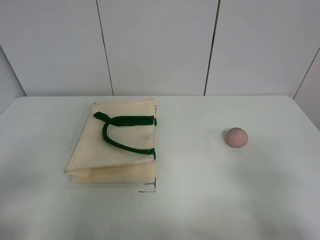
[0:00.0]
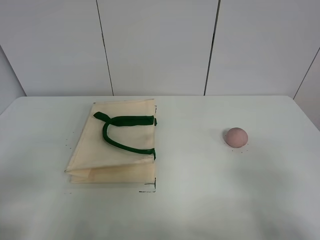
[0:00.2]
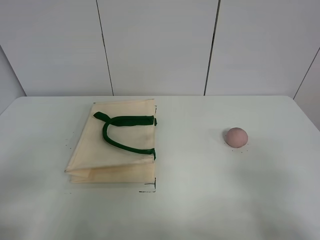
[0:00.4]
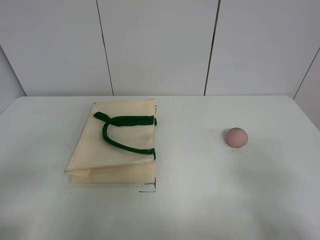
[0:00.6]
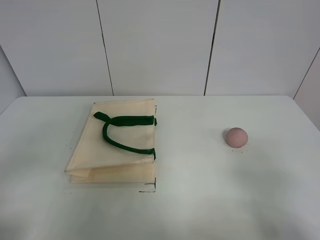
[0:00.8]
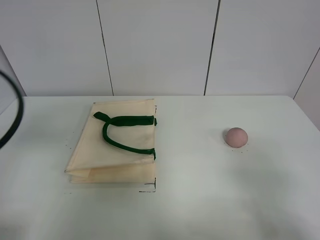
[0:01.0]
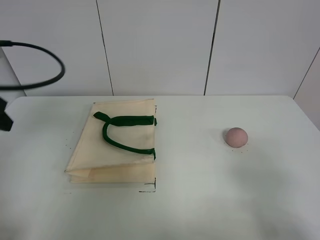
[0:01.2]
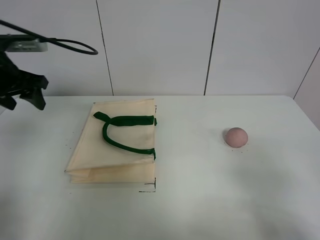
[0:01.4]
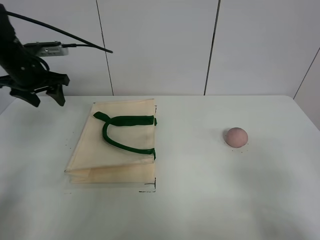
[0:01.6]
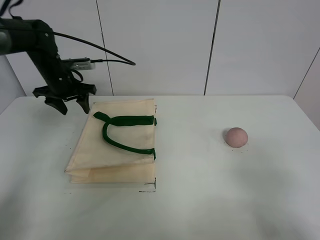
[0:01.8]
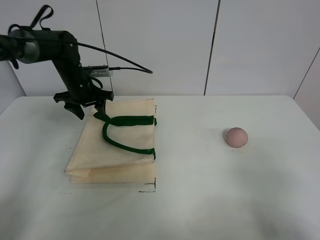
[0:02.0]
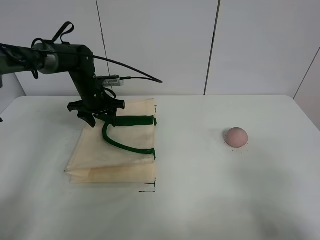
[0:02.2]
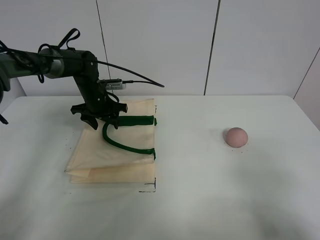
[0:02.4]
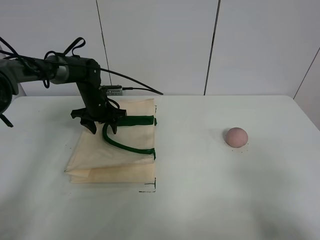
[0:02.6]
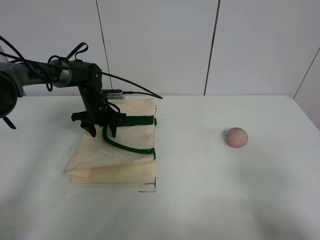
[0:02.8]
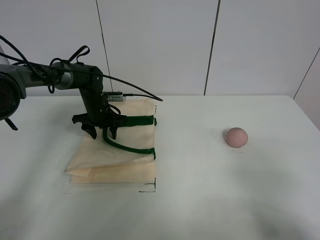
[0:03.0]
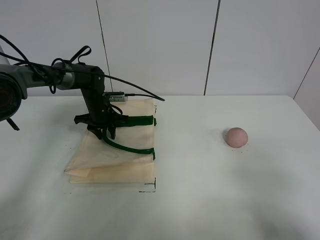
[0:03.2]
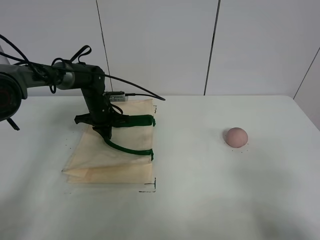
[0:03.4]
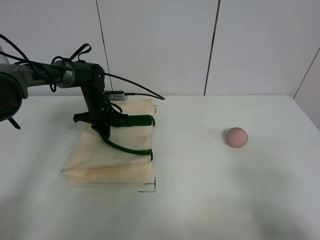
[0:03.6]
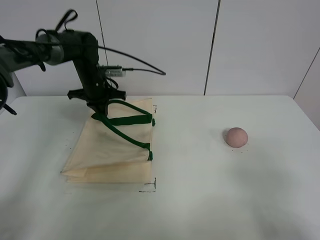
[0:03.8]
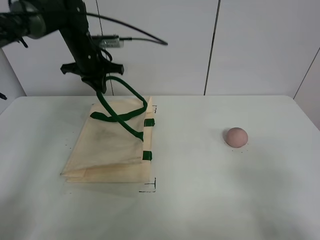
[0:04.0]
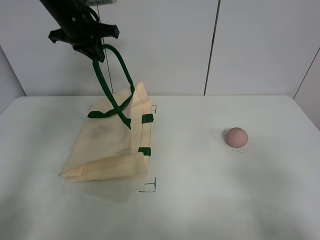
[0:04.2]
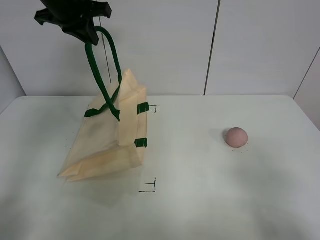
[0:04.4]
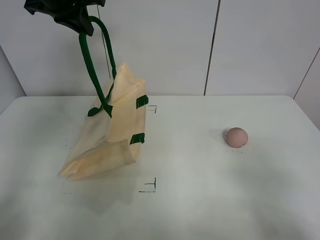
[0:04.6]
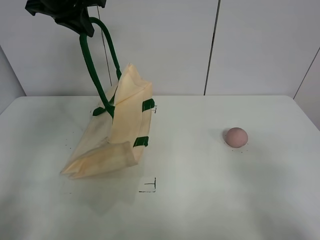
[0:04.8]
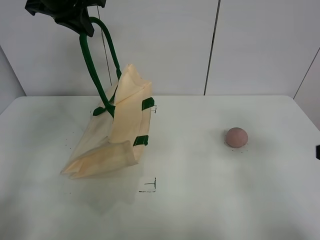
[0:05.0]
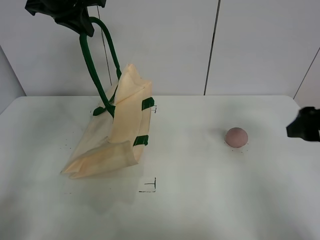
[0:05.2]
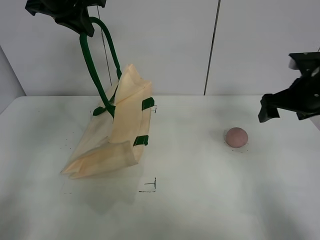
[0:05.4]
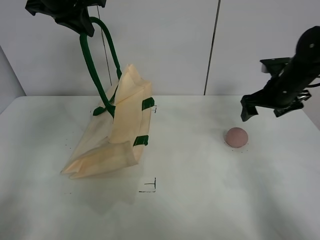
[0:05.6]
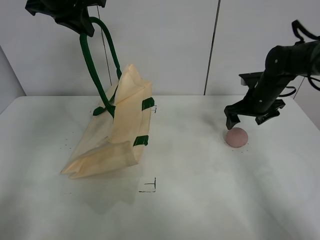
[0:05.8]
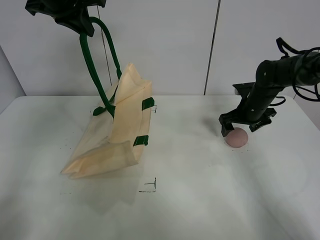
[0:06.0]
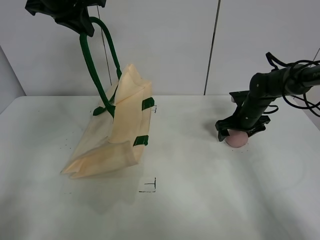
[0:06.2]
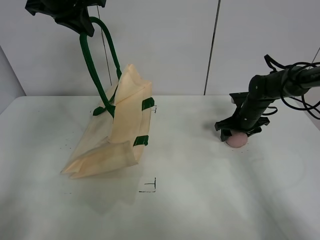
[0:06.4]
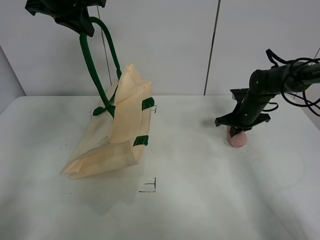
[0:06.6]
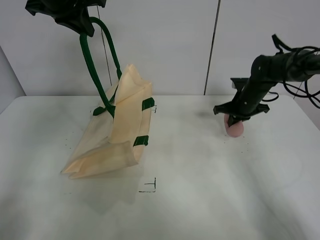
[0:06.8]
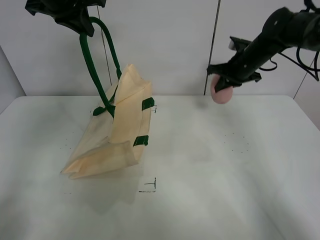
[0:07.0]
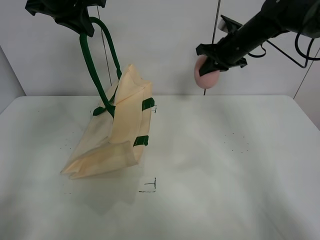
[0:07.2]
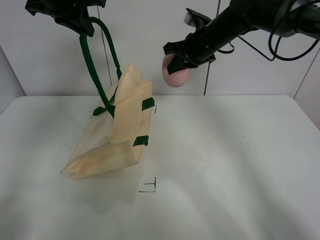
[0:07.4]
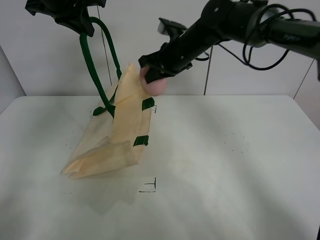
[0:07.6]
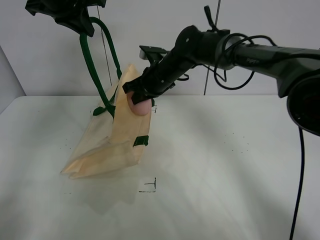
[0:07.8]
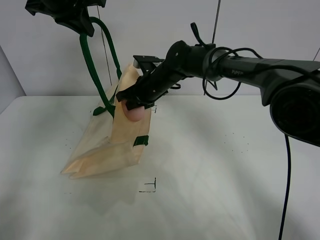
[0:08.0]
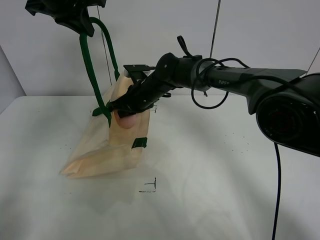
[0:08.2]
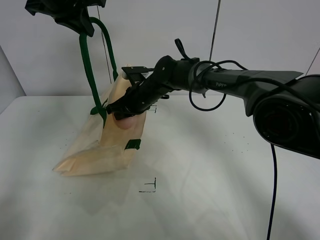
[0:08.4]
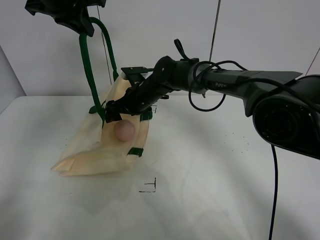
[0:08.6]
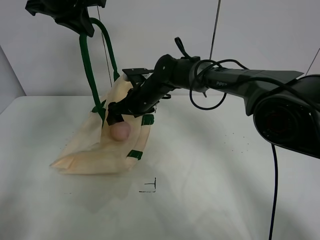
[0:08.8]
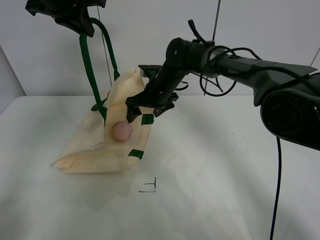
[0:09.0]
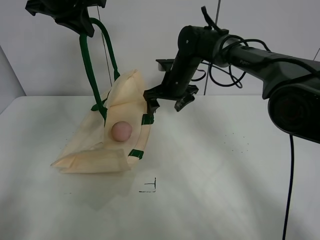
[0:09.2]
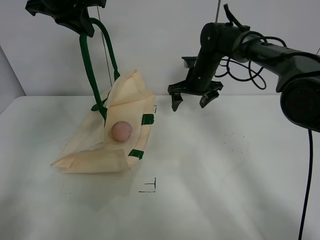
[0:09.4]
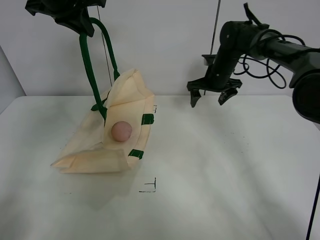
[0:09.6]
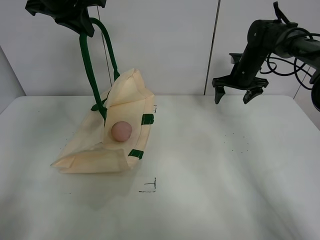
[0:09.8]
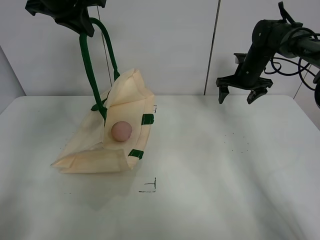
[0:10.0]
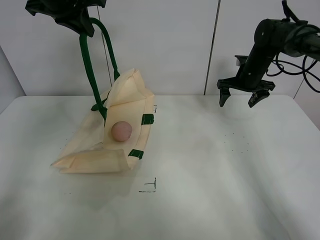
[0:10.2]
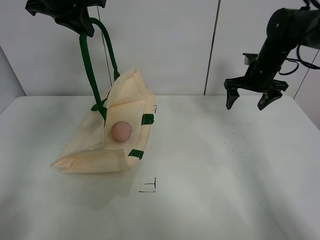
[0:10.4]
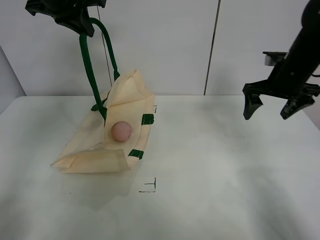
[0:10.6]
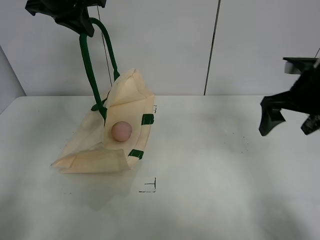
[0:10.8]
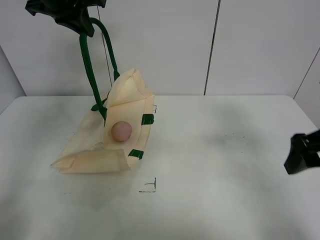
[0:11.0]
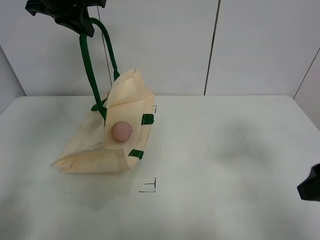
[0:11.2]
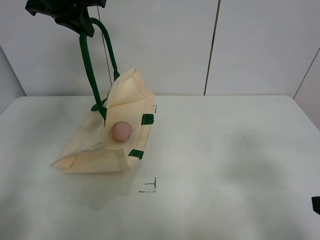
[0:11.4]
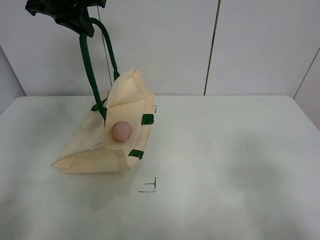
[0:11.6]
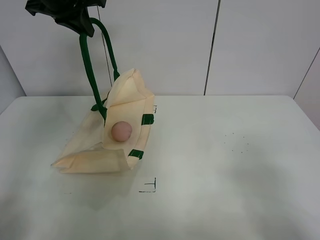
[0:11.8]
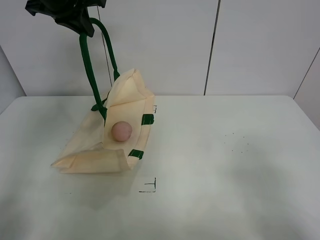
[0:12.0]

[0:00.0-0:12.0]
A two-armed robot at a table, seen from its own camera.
Task of the whole recording: open the white linen bag and put the peach in the bag.
Step, 0:00.0 to 0:04.8: Lift the handbag with left gripper.
Step, 0:05.0 to 0:06.6: Grasp the peach with right gripper.
Step, 0:06.8 to 0:08.6: Place the peach in the handbag with right gripper.
0:00.0 to 0:01.6: The left gripper travels forward by roughly 40 cm.
0:01.6 to 0:03.0: The left gripper heads downward and to the right, covering roughly 20 cm.
0:03.0 to 0:04.4: The left gripper travels upward by roughly 30 cm, and closes.
0:04.4 to 0:06.0: The right gripper heads forward, covering about 40 cm.
0:06.0 to 0:07.6: The right gripper is displaced to the left and upward by about 25 cm, and closes up.
0:07.6 to 0:09.0: The right gripper travels downward by approximately 5 cm, and opens up.
0:09.0 to 0:10.4: The right gripper is displaced to the right by roughly 25 cm.
0:10.4 to 0:12.0: The right gripper moves backward, some 40 cm.

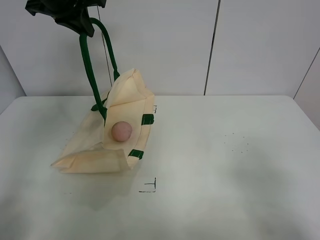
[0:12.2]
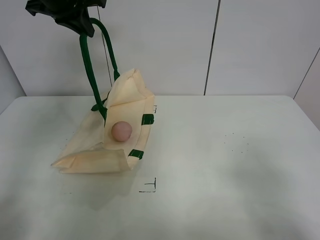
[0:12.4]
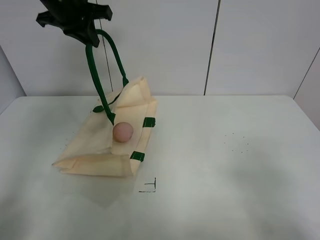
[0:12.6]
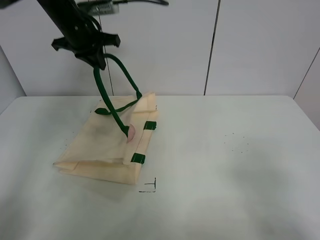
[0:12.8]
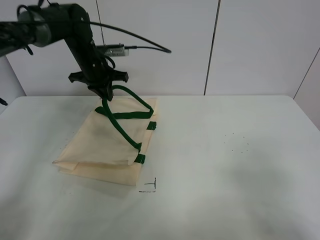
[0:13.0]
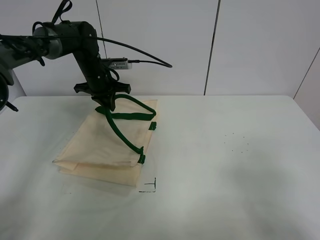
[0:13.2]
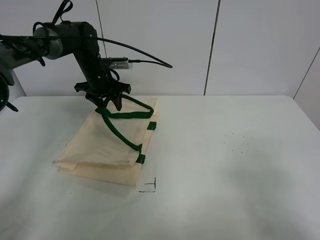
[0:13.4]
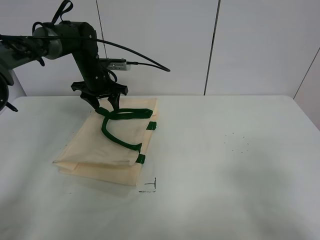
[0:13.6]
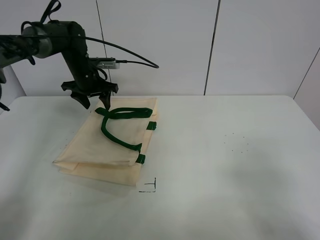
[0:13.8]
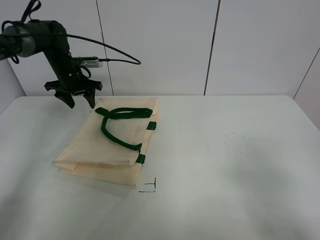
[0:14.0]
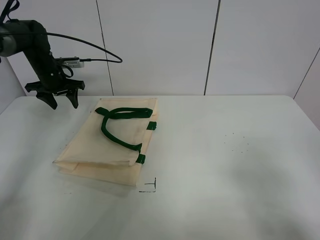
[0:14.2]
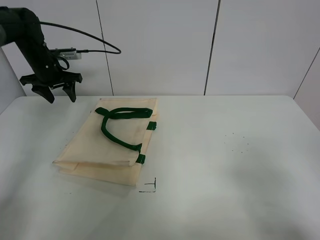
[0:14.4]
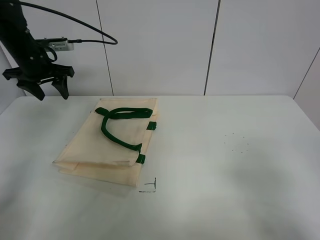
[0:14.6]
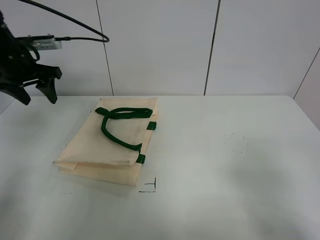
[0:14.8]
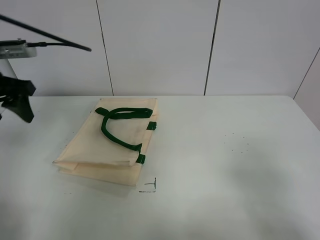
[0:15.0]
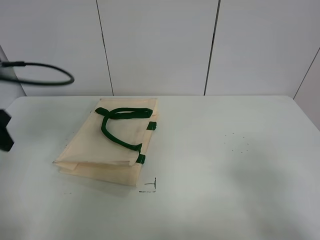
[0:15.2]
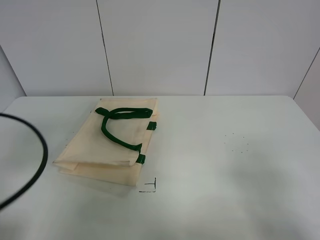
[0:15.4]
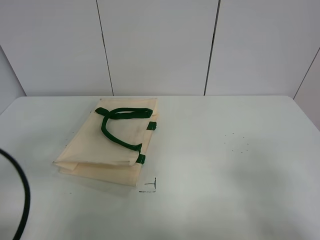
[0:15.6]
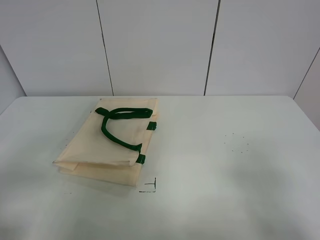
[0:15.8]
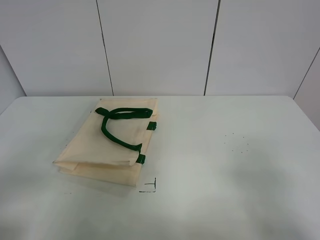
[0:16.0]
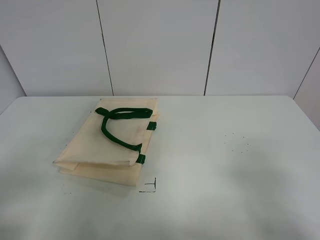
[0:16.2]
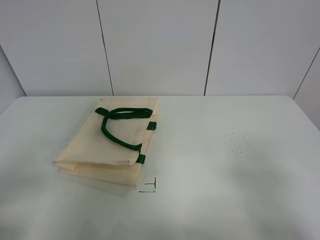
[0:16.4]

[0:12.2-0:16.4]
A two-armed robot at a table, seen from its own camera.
Task of the whole recording: open the white linen bag and put the peach in the bag.
0:12.2 to 0:13.6: The left gripper moves downward, about 20 cm, and opens its fingers.
0:13.6 to 0:15.0: The left gripper heads backward, to the left and upward, covering some 25 cm.
0:15.0 to 0:16.4: The left gripper is displaced backward by roughly 25 cm.

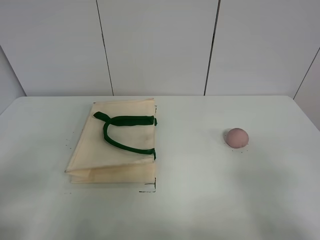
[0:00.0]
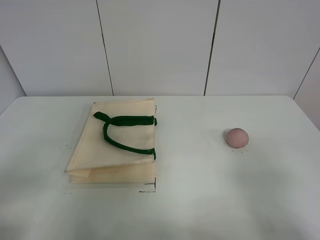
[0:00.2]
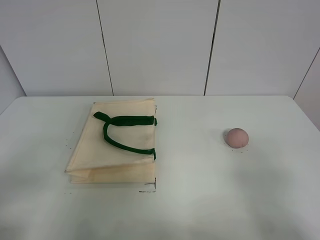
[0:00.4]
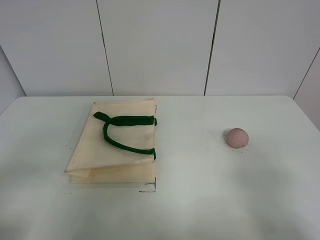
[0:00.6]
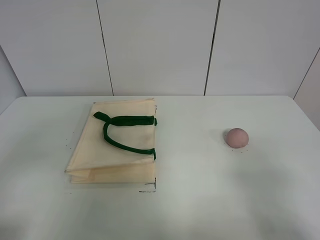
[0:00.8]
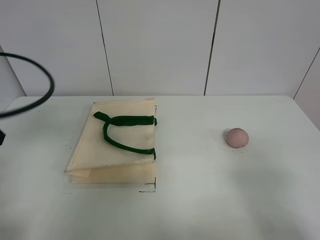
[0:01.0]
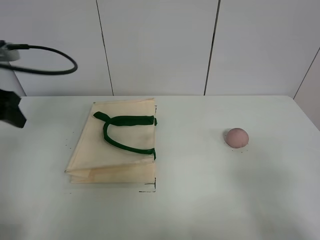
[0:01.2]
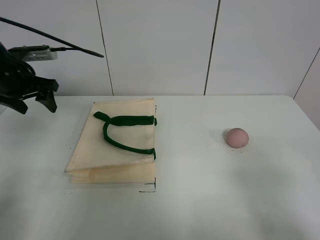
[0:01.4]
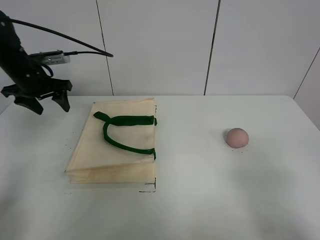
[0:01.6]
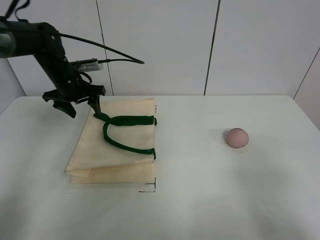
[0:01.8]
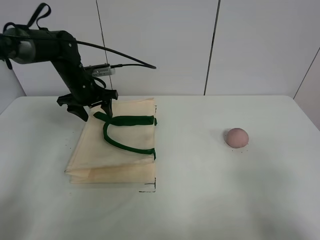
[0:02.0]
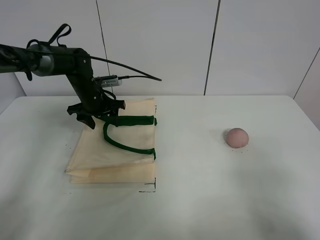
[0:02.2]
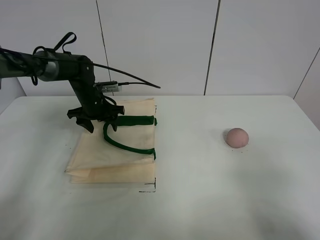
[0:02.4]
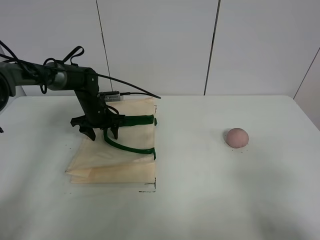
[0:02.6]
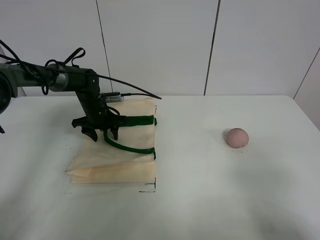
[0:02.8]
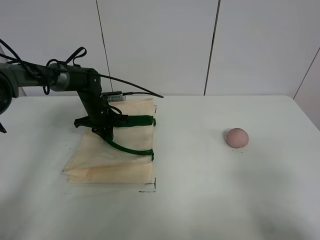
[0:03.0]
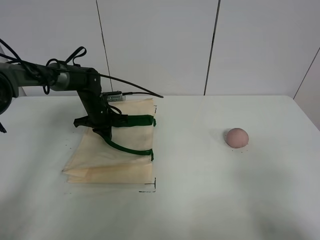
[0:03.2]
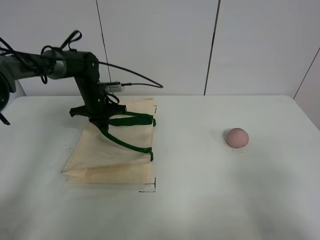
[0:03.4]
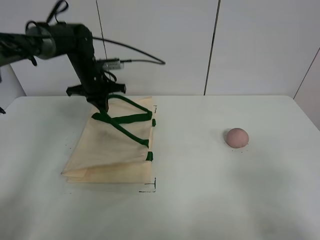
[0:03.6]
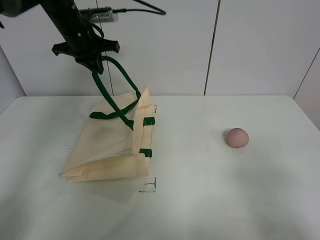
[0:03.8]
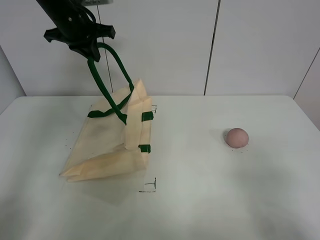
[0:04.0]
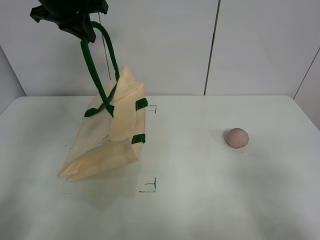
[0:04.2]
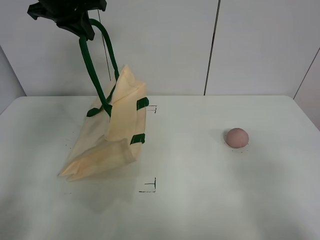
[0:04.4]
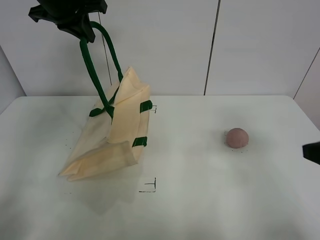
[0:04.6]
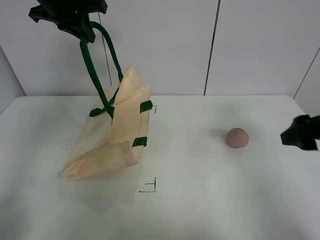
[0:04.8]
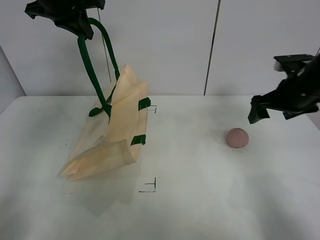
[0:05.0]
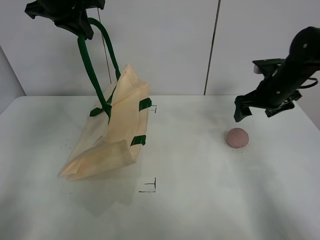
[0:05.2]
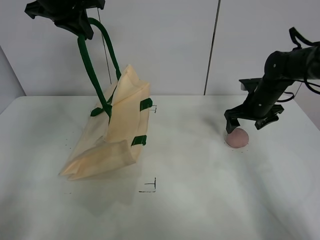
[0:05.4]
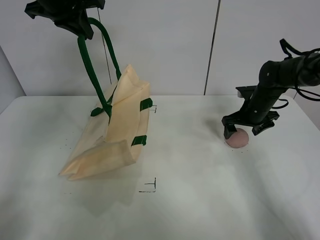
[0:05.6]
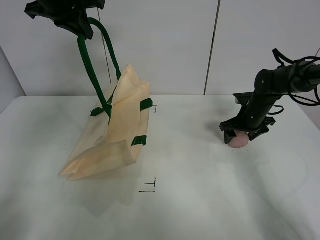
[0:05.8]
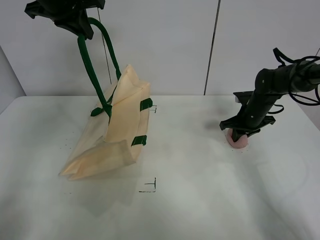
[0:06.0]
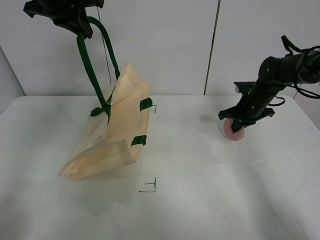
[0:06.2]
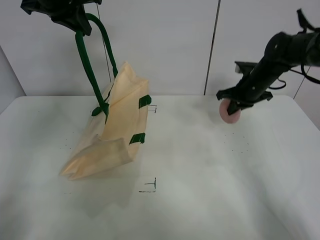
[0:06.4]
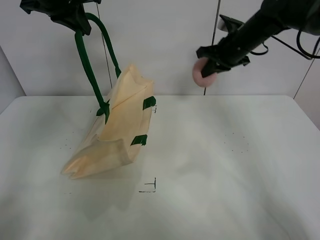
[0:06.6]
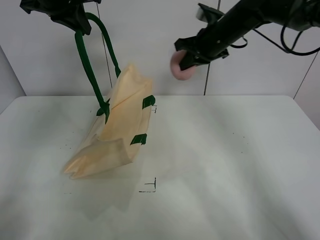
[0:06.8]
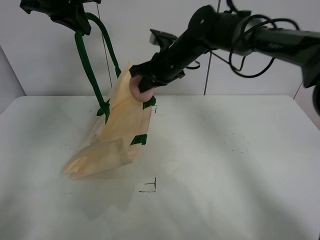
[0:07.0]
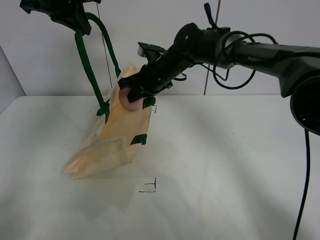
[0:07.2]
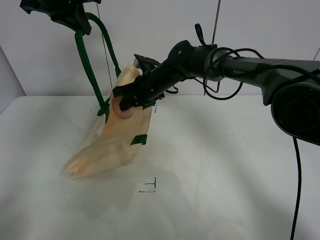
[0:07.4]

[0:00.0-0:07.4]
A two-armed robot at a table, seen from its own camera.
Task of the whole recording: open the white linen bag and put the peach in the bag.
Step, 0:00.0 to 0:04.2: Lift the handbag with left gripper.
Step, 0:04.4 to 0:06.2: Grasp the peach with right gripper.
0:00.0 to 0:01.4: The left gripper shifts roughly 35 cm forward.
0:01.4 to 0:03.0: The left gripper travels downward, to the right and forward by roughly 20 cm, and closes its fingers.
0:03.0 to 0:04.4: The left gripper moves upward, approximately 30 cm.
0:04.4 to 0:06.0: The right gripper travels forward and downward by approximately 40 cm, and closes.
0:06.0 to 0:07.4: The right gripper heads to the left, covering about 25 cm.
